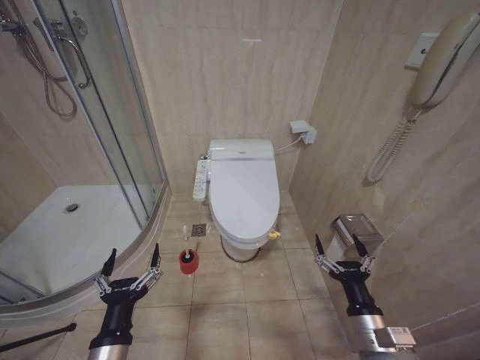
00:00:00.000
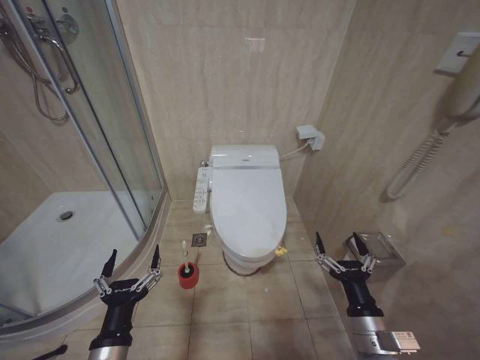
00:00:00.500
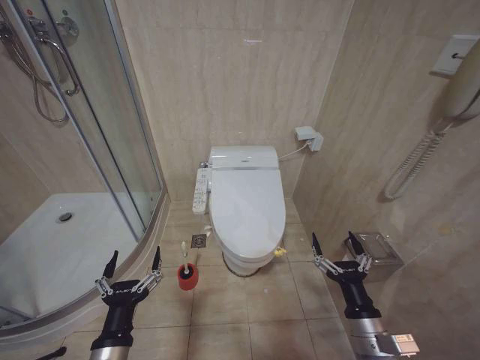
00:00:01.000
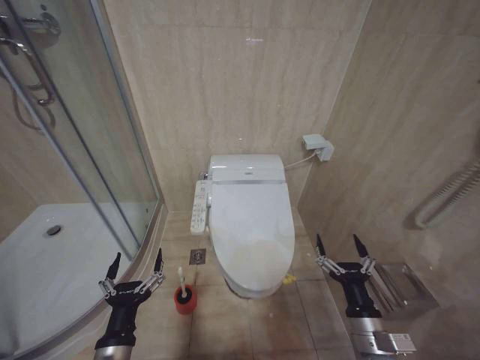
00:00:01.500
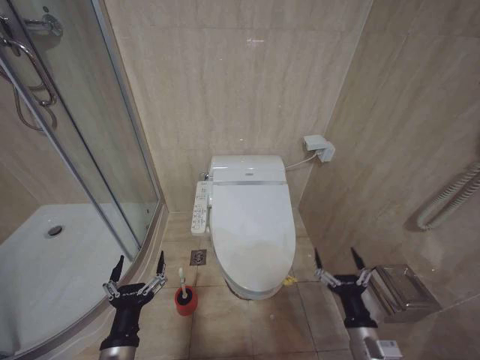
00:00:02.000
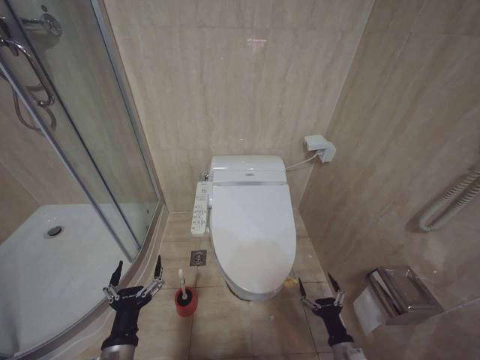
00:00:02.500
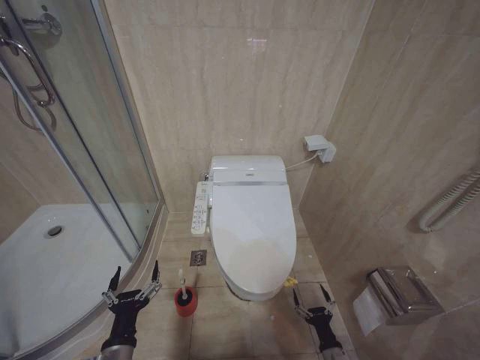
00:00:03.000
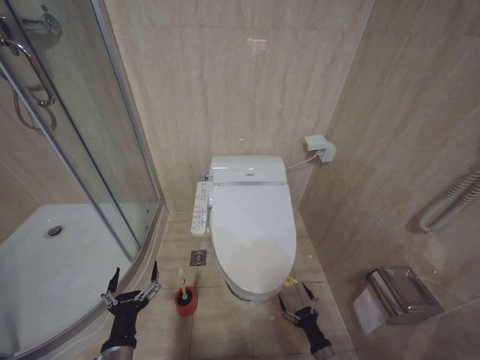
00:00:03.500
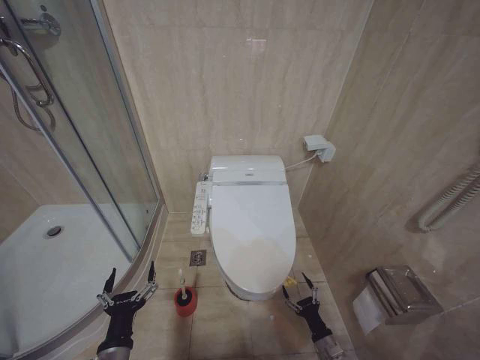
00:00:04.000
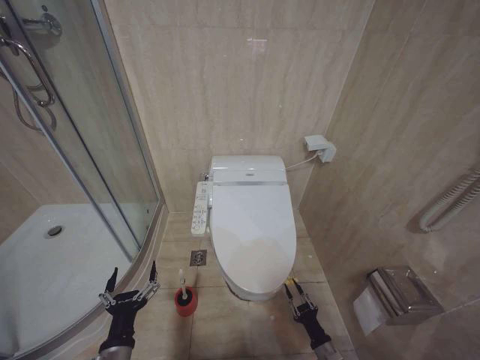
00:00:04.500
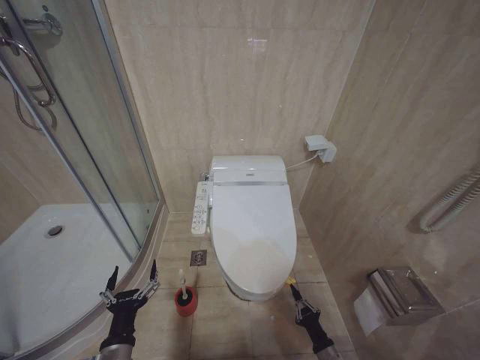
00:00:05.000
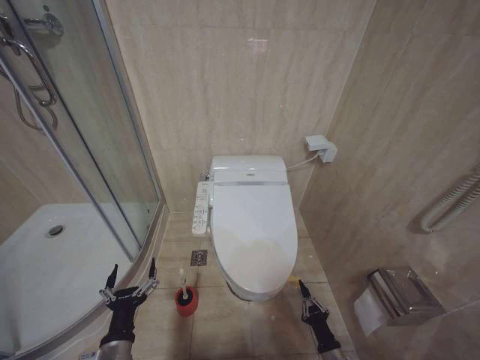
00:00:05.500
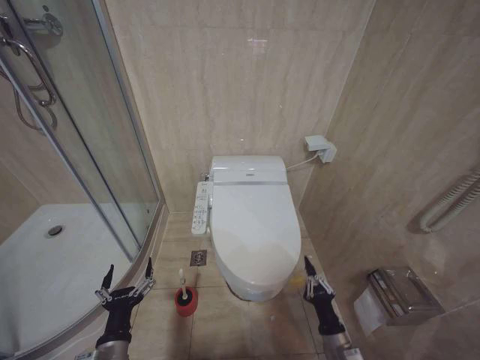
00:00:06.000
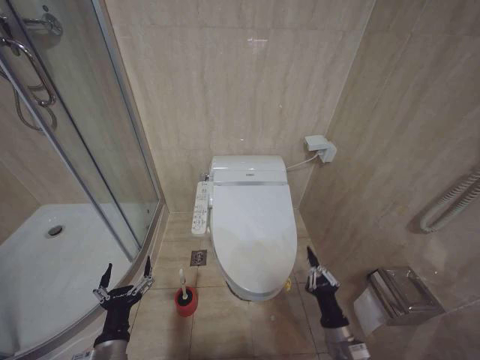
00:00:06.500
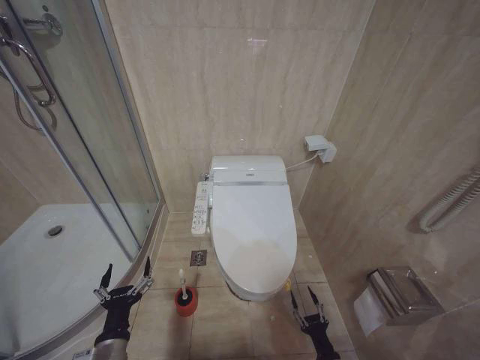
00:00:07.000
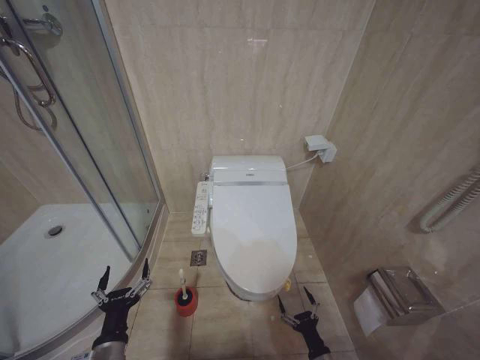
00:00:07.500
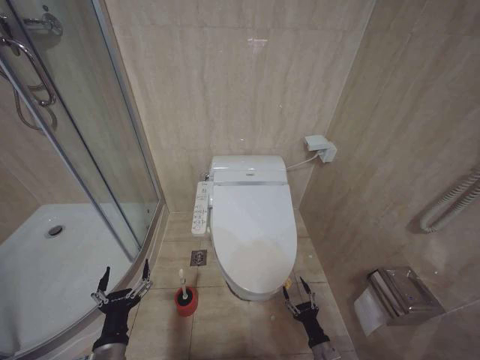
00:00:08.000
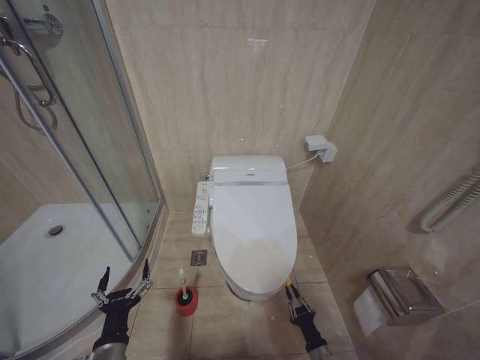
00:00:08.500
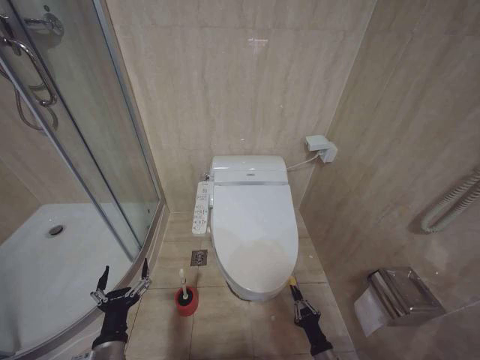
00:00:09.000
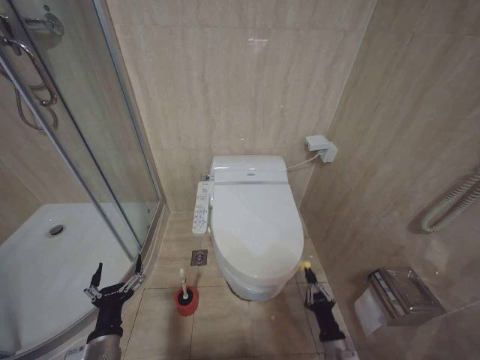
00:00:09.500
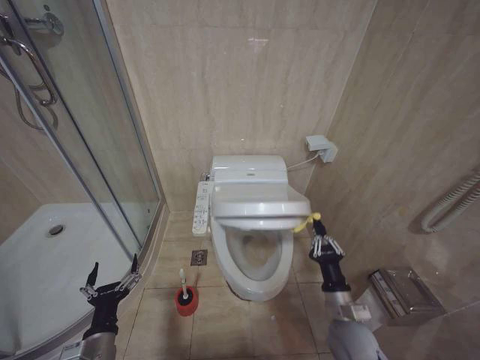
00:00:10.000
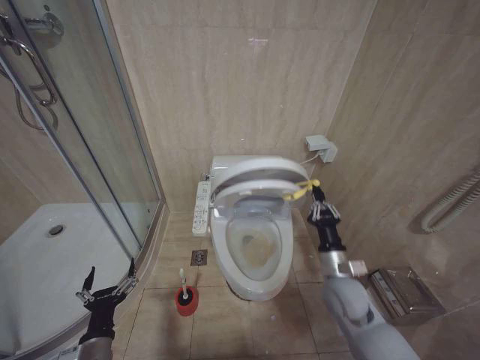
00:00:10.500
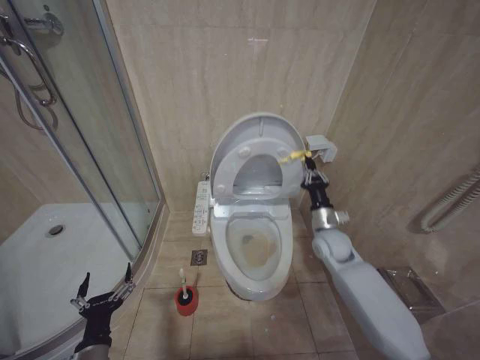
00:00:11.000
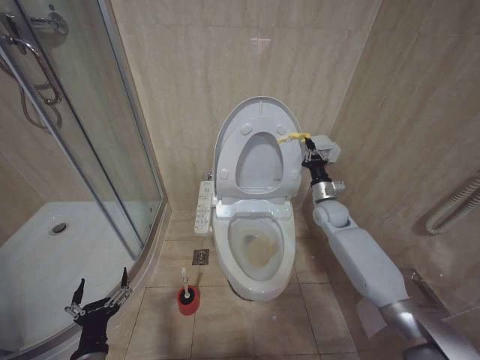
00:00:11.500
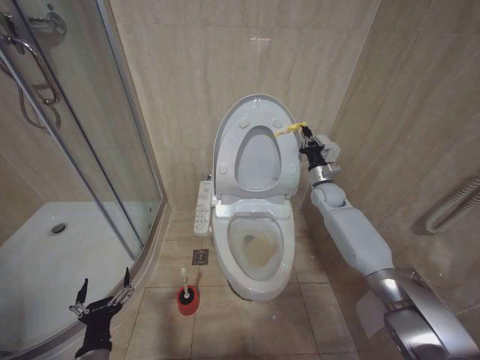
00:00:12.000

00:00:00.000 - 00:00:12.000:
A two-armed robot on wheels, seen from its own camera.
Task of the whole recording: Open the toilet lid, clean the toilet bowl with a toilet brush, close the toilet lid, and flush.
00:00:02.000 - 00:00:04.000: The right gripper is displaced downward by some 20 cm; the left gripper moves roughly 5 cm.
00:00:04.000 - 00:00:06.000: The right gripper moves upward, about 10 cm, and closes its fingers.
00:00:06.000 - 00:00:08.000: The right gripper heads downward, covering approximately 10 cm, and opens its fingers.
00:00:08.000 - 00:00:10.000: The right gripper moves upward, about 20 cm, and closes up.
00:00:10.000 - 00:00:12.000: The right gripper goes approximately 40 cm forward and upward.

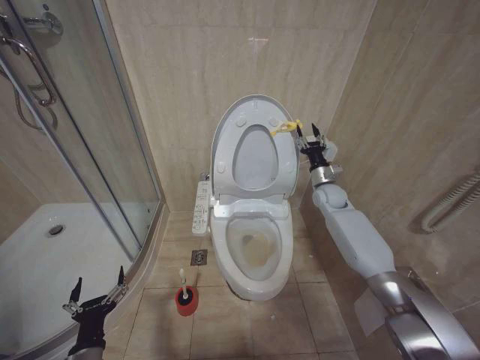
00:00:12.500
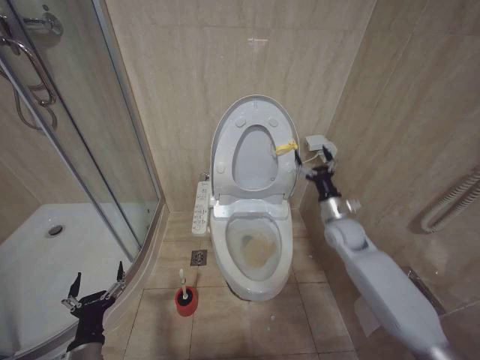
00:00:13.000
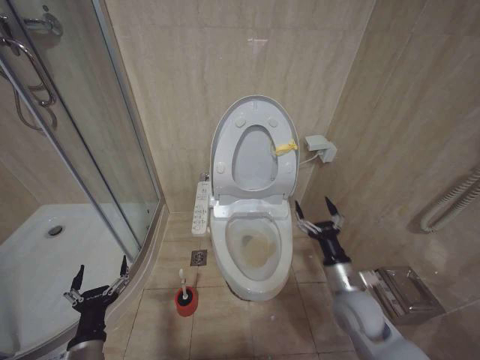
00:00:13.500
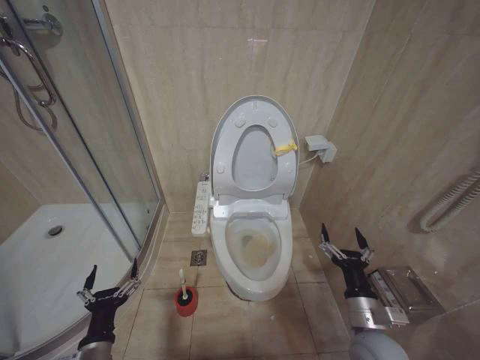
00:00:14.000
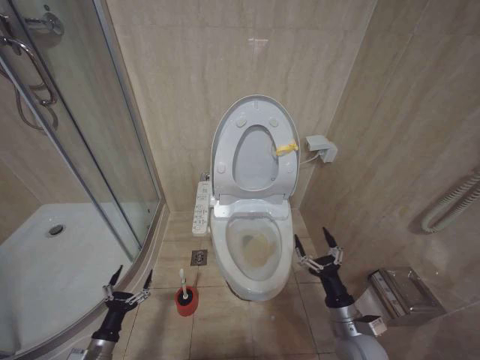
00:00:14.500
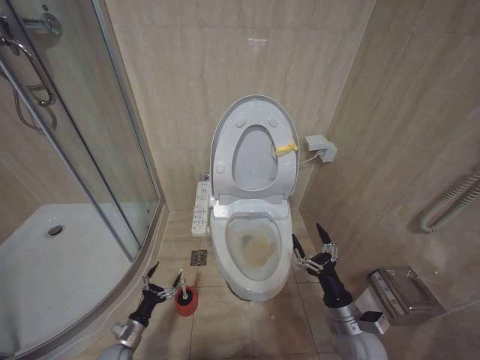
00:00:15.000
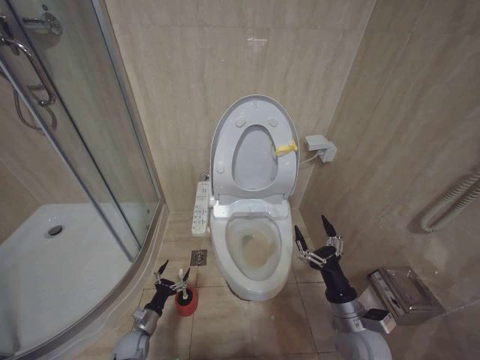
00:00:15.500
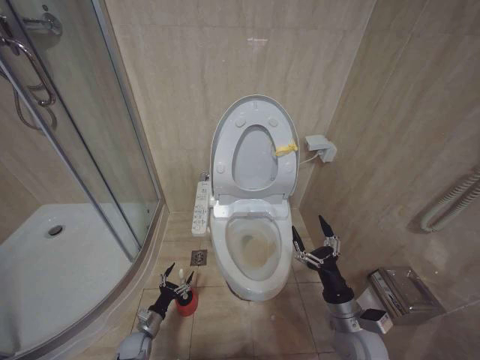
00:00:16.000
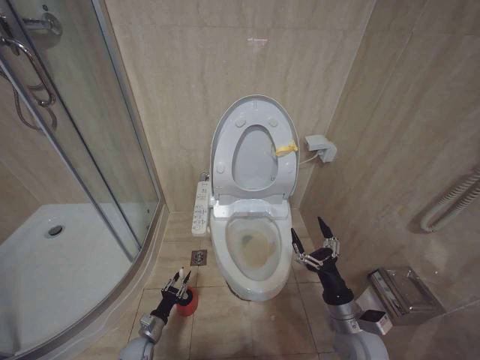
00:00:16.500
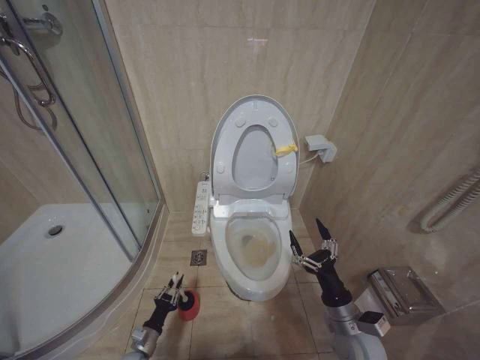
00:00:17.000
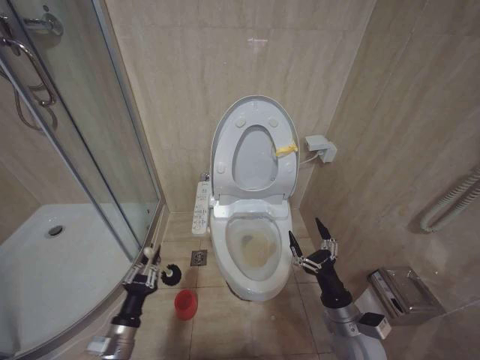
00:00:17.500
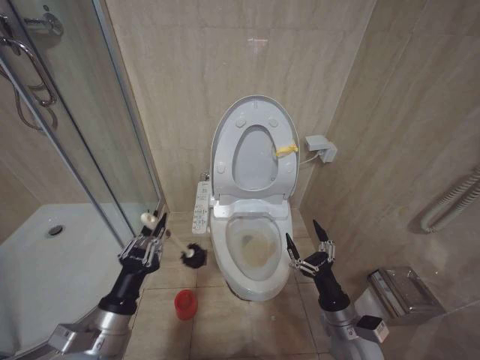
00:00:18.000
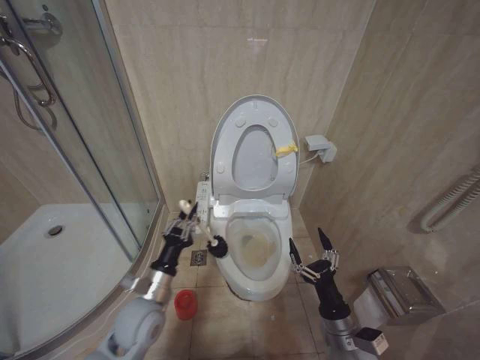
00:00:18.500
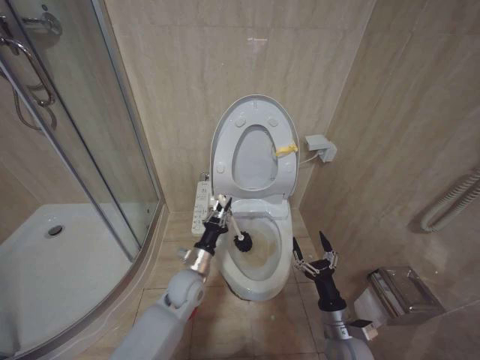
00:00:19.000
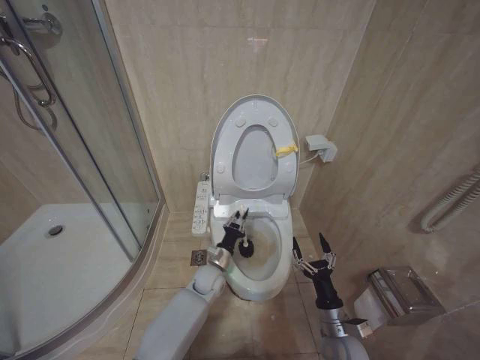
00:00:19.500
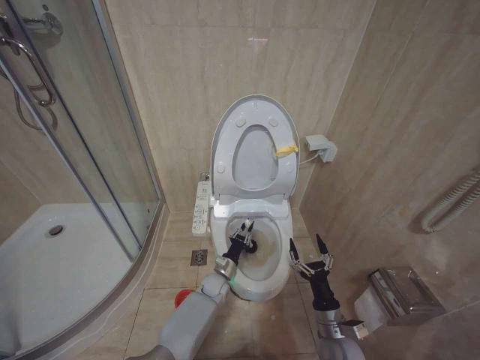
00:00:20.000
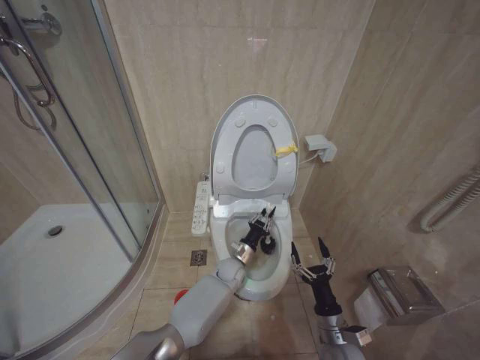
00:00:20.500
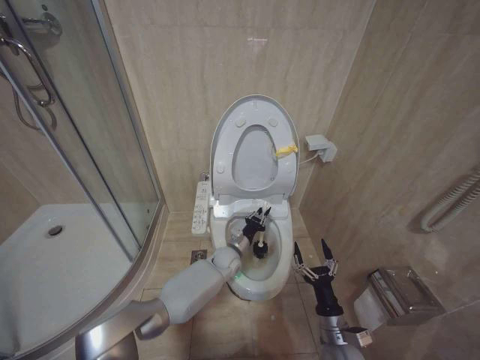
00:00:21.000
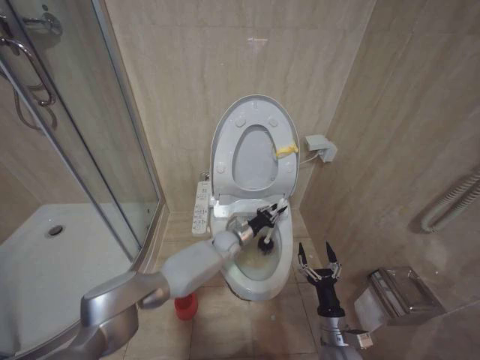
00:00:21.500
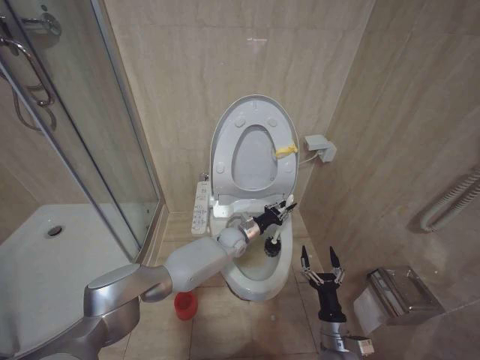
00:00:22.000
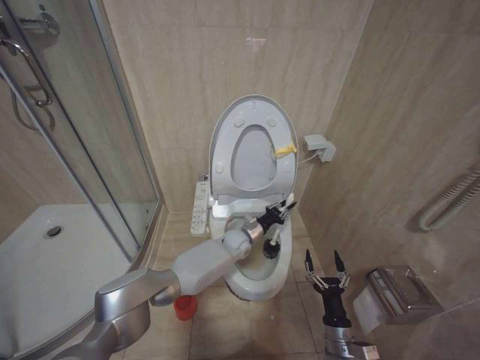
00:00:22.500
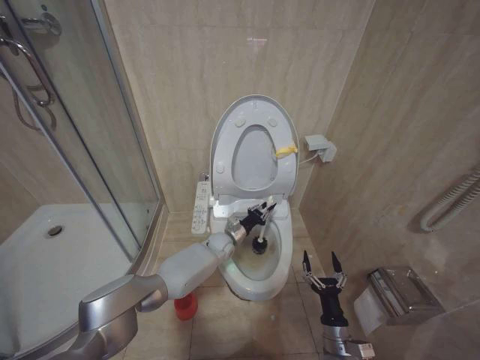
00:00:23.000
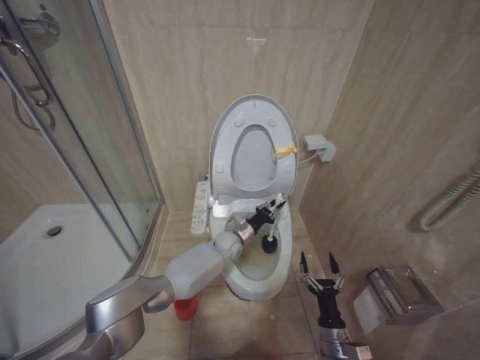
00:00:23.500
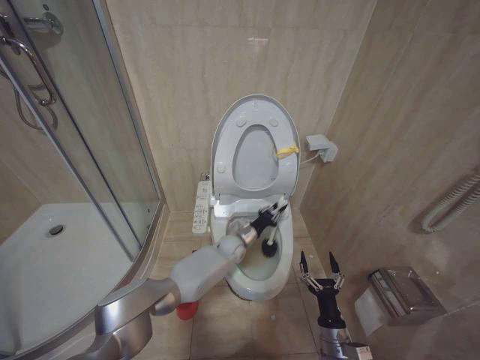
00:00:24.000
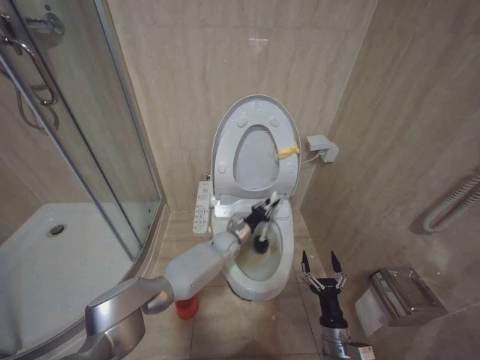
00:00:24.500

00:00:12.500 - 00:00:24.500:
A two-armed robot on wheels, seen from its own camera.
Task of the whole recording: Open the toilet lid, clean the toilet bowl with a toilet brush, close the toilet lid, and flush.
00:00:12.500 - 00:00:14.500: The left gripper is displaced downward and to the left by approximately 10 cm; the right gripper moves backward and downward, about 40 cm, and opens up.
00:00:14.500 - 00:00:16.500: The left gripper moves downward and forward, some 20 cm.
00:00:16.500 - 00:00:18.500: The left gripper moves upward, approximately 30 cm, and closes its fingers.
00:00:18.500 - 00:00:20.500: The left gripper is displaced to the right, forward and downward by approximately 35 cm. The right gripper moves downward, approximately 5 cm.
00:00:20.500 - 00:00:22.500: The left gripper shifts roughly 10 cm upward and forward.
00:00:22.500 - 00:00:24.500: The left gripper is displaced to the left and downward by about 5 cm.

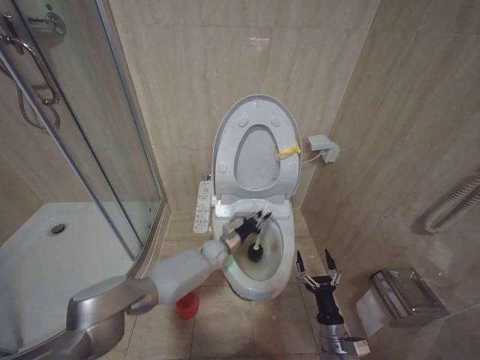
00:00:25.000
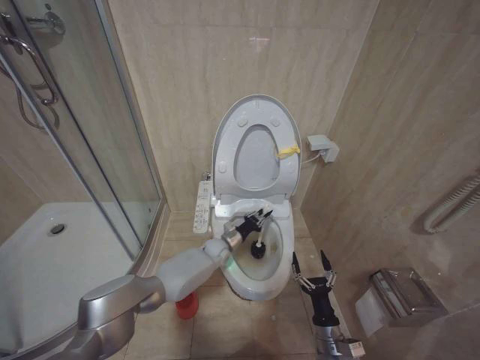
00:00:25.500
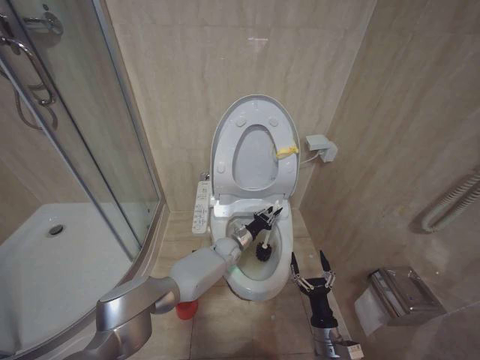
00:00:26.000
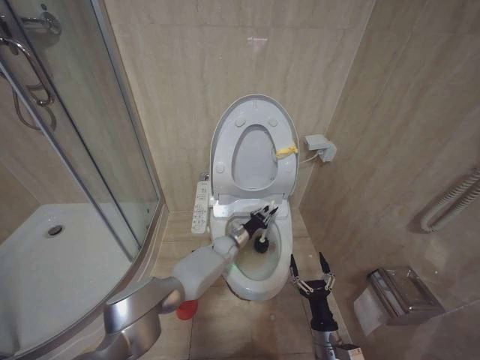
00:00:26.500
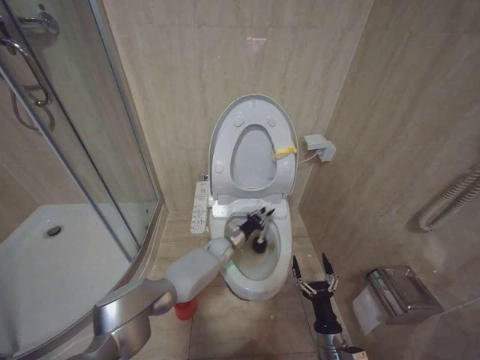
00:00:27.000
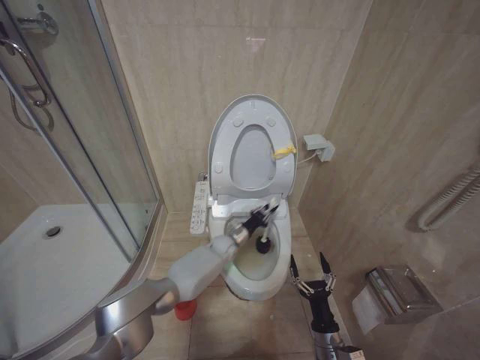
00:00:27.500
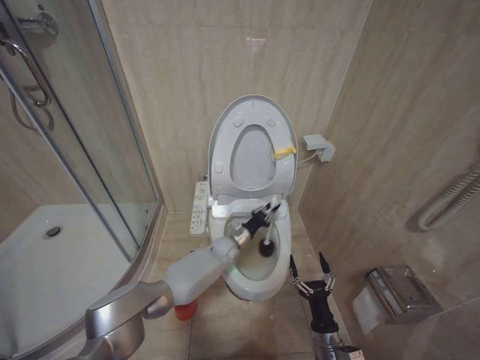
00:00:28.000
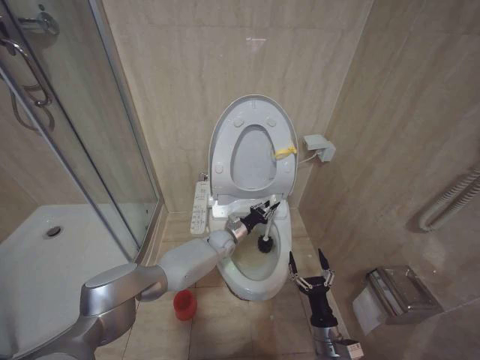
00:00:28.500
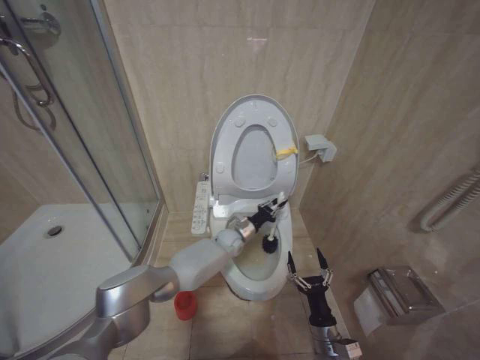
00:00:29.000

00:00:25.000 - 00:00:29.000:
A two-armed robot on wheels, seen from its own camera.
Task of the whole recording: Open the toilet lid, clean the toilet bowl with a toilet brush, close the toilet lid, and flush.
00:00:27.000 - 00:00:29.000: The grippers stay close to where they were, moving slightly.
